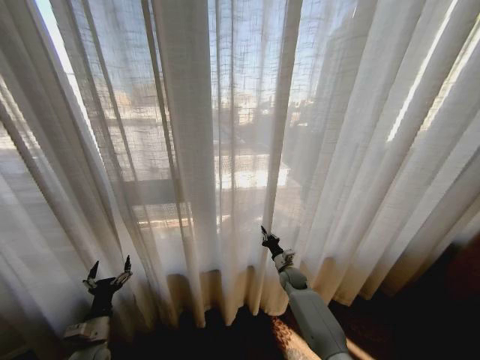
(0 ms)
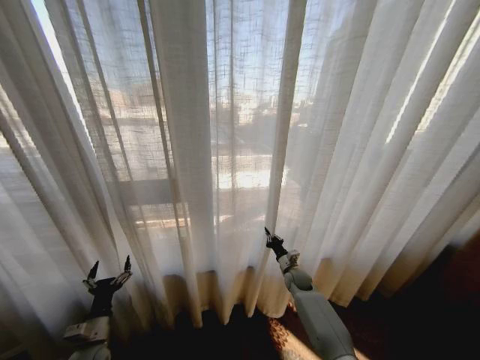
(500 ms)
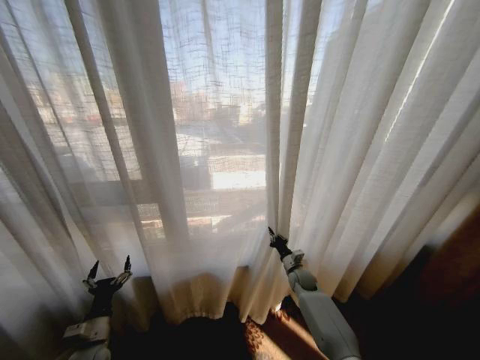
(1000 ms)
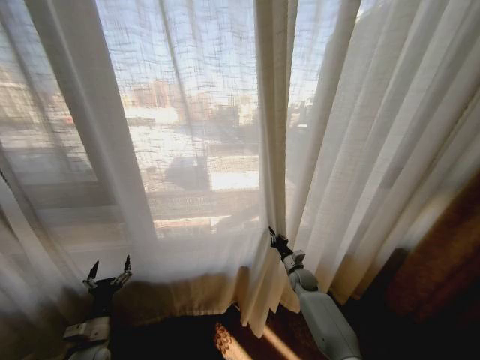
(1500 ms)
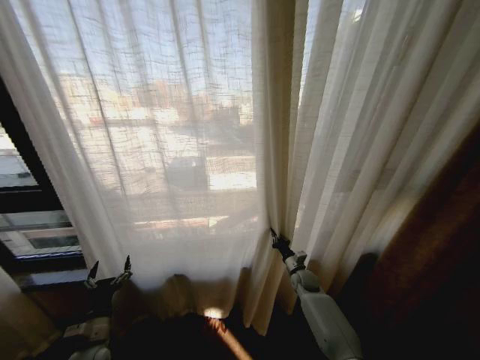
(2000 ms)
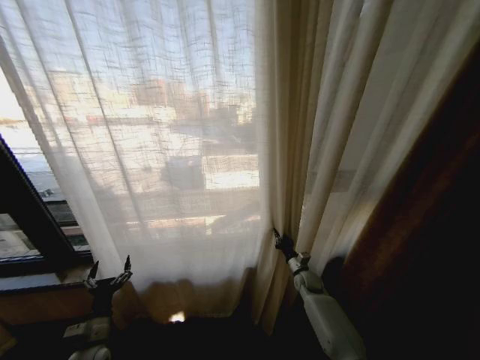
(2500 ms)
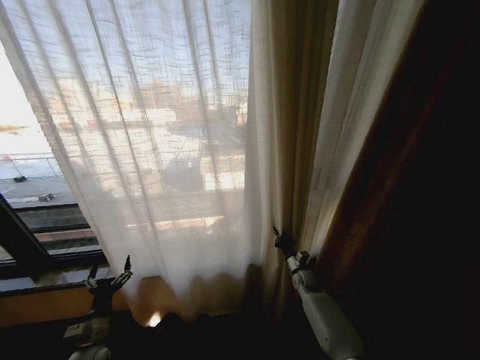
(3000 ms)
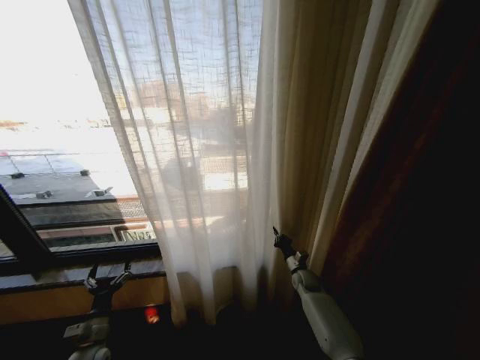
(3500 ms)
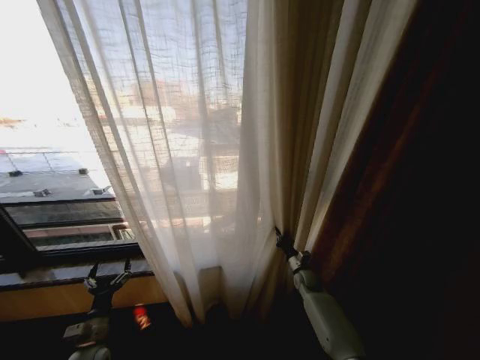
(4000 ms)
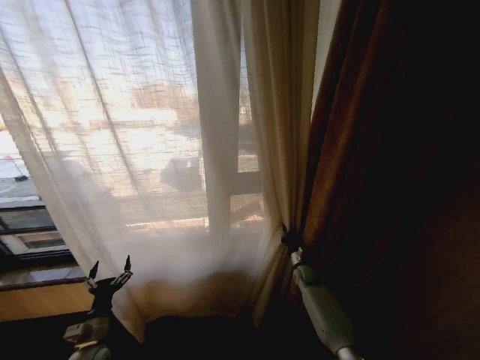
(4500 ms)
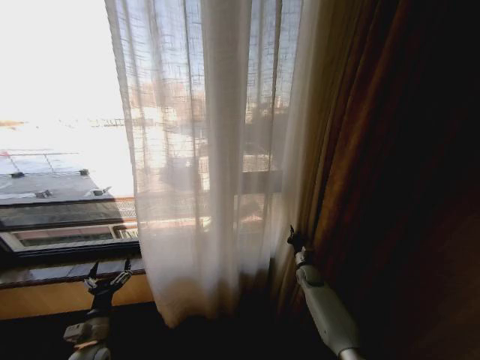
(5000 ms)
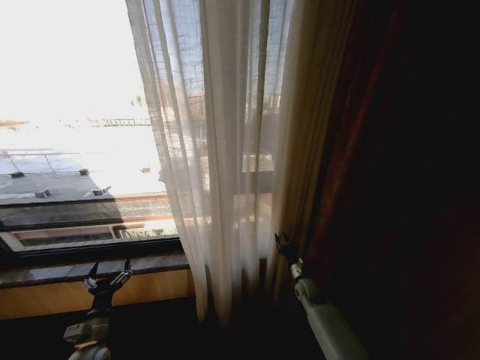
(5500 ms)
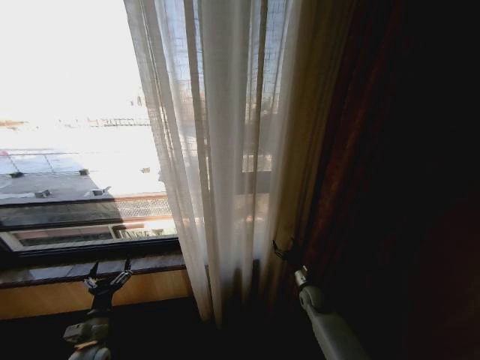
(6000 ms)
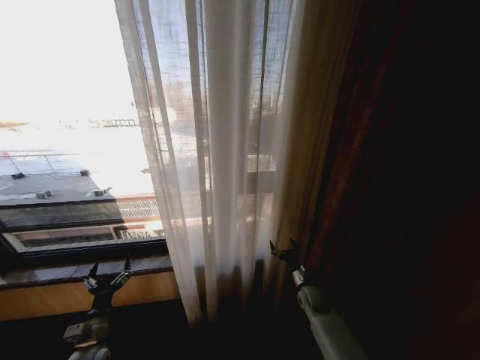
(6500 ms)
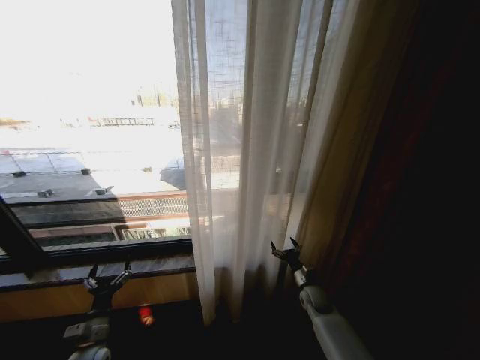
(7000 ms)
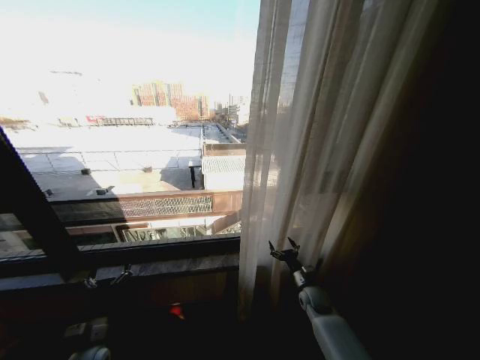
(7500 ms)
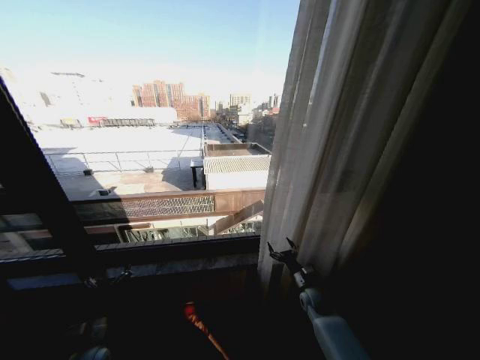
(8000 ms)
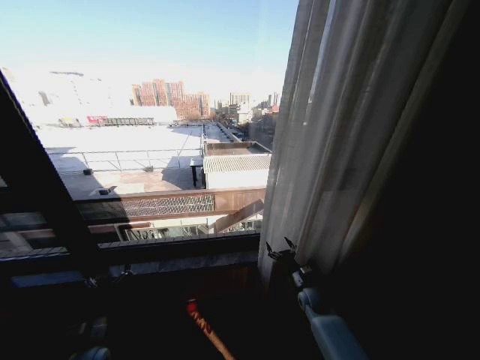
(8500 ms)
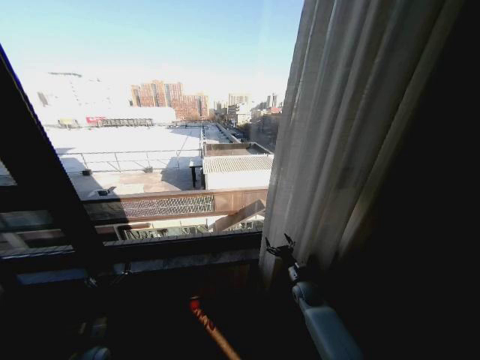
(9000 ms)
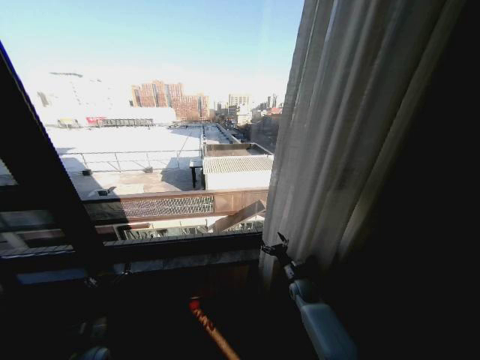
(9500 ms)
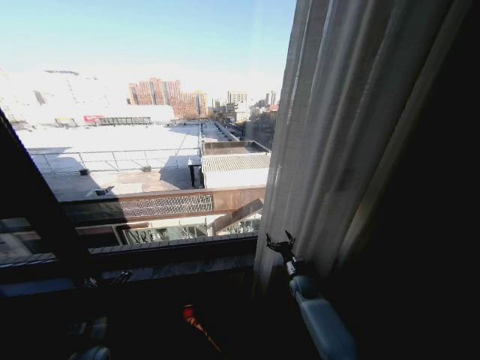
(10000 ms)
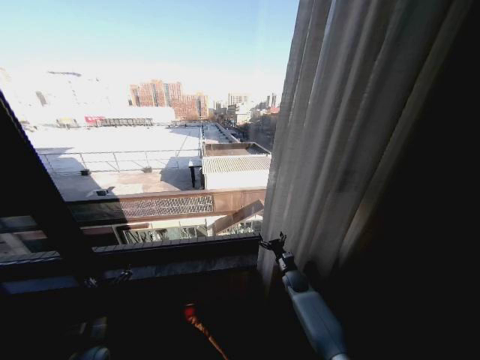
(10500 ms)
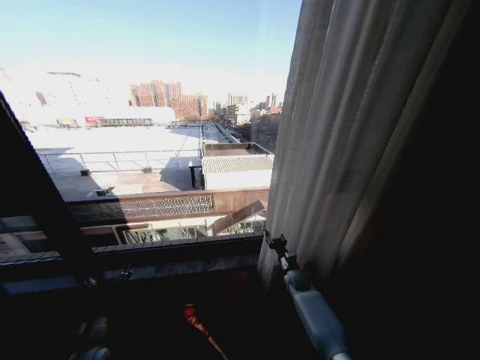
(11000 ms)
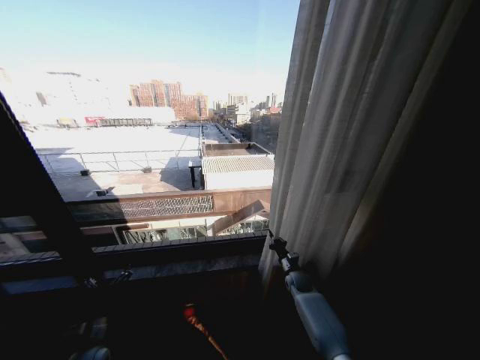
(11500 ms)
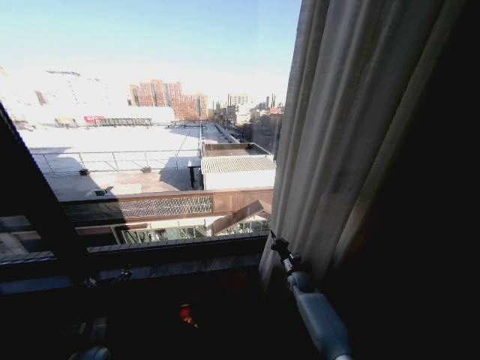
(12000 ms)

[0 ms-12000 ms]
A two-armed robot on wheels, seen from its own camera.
Task of the whole recording: Open the curtains by pulling them apart, changing their state from closed to fully open.
4000 ms to 6000 ms: The right gripper is displaced backward by about 5 cm, and opens up.
8000 ms to 10000 ms: The right gripper shifts about 5 cm forward.
10000 ms to 12000 ms: The right gripper closes.

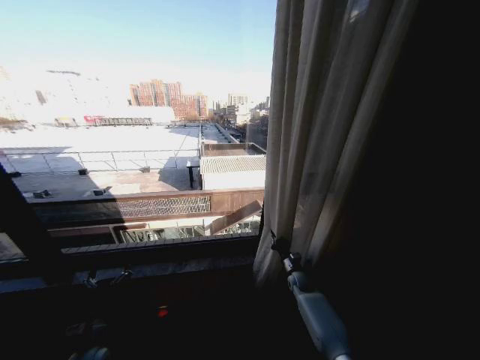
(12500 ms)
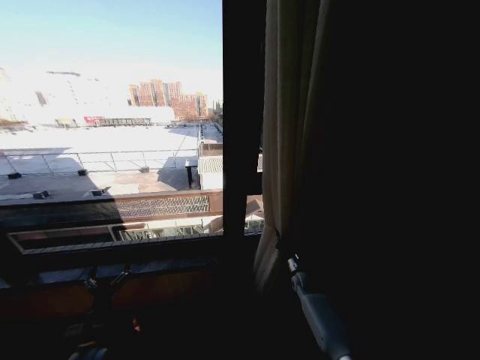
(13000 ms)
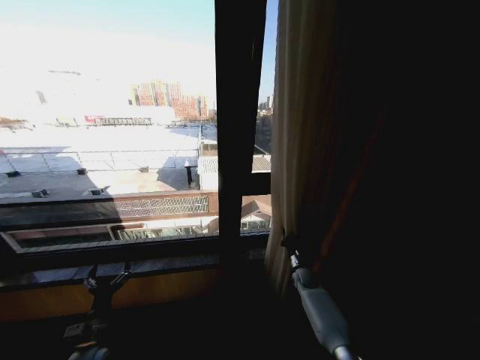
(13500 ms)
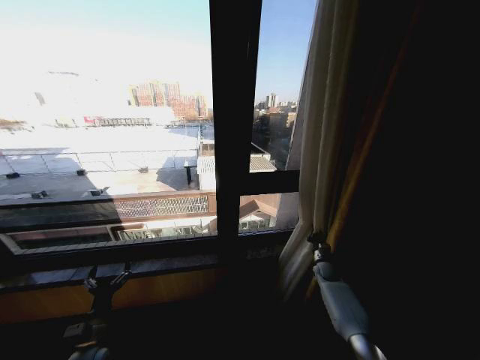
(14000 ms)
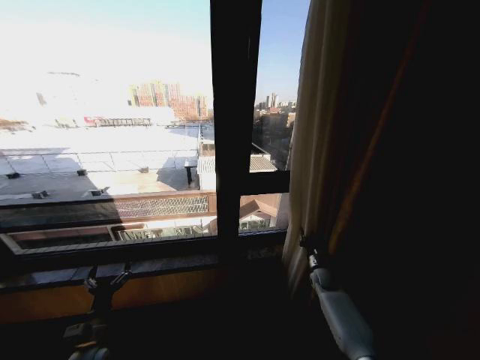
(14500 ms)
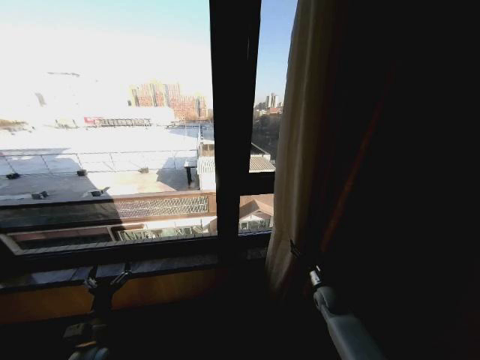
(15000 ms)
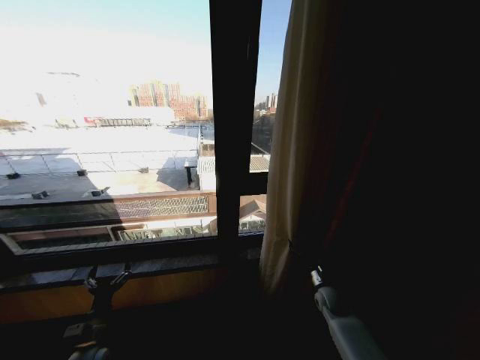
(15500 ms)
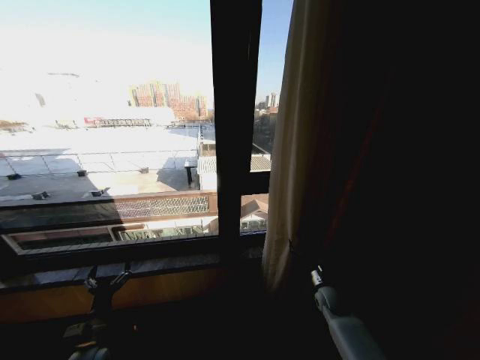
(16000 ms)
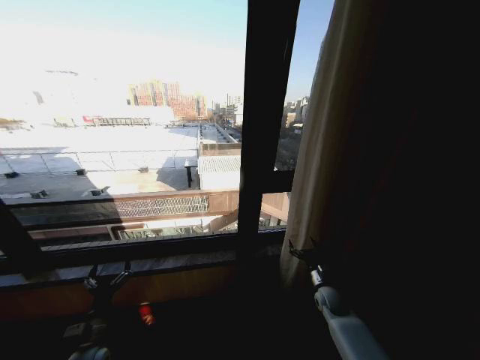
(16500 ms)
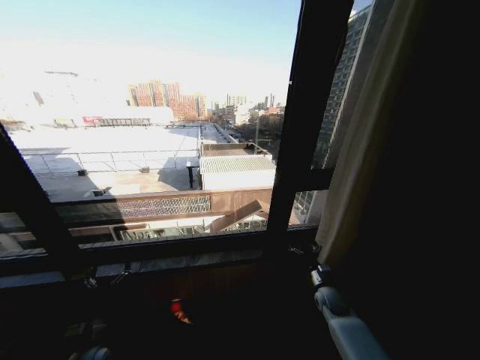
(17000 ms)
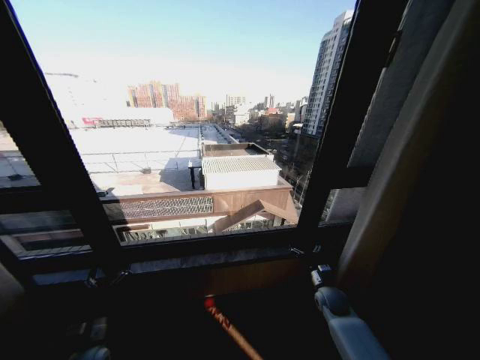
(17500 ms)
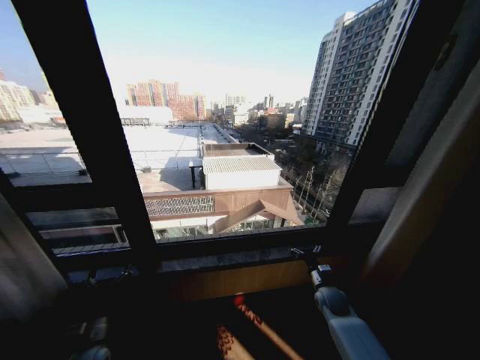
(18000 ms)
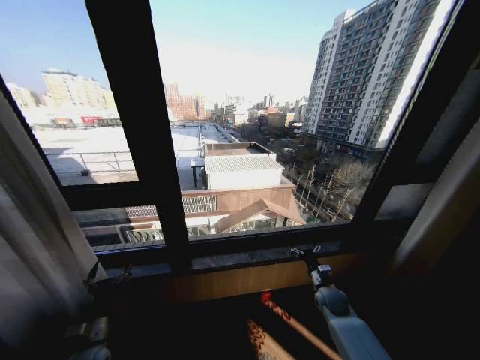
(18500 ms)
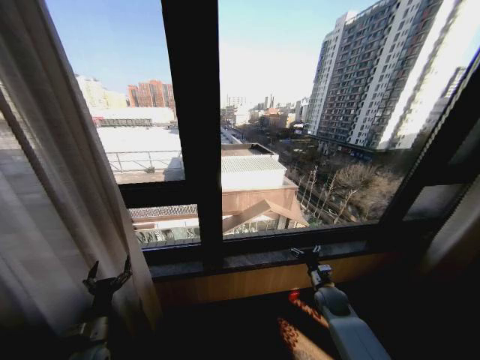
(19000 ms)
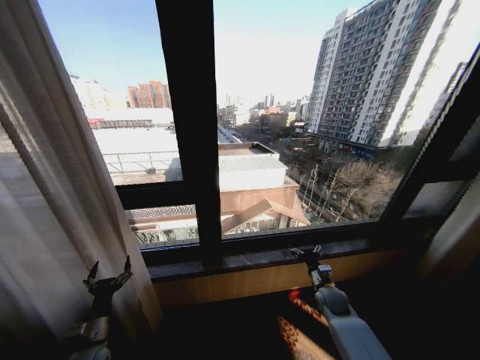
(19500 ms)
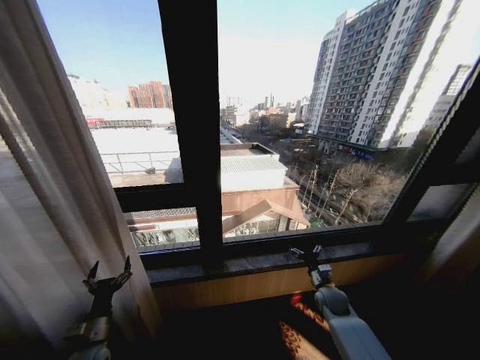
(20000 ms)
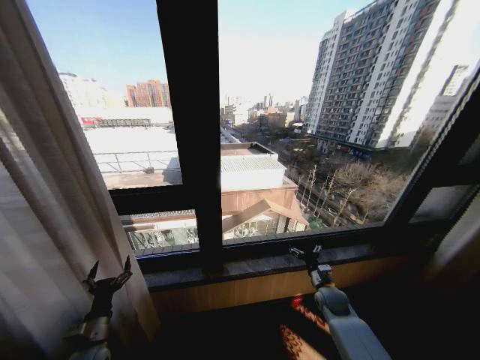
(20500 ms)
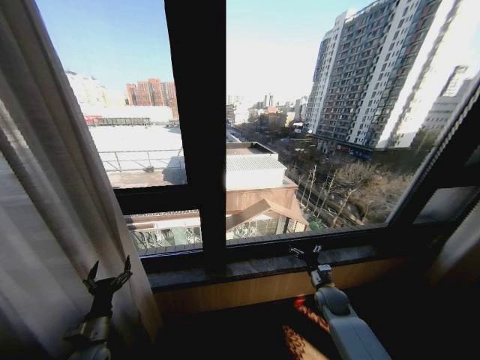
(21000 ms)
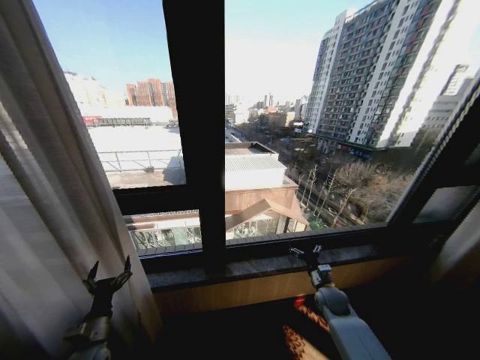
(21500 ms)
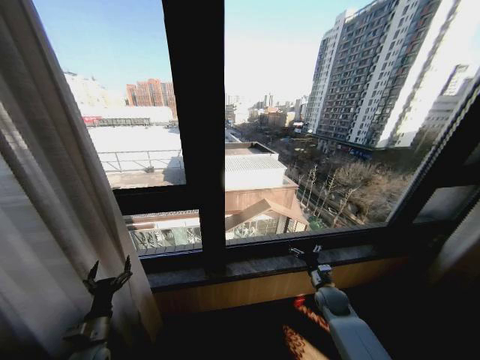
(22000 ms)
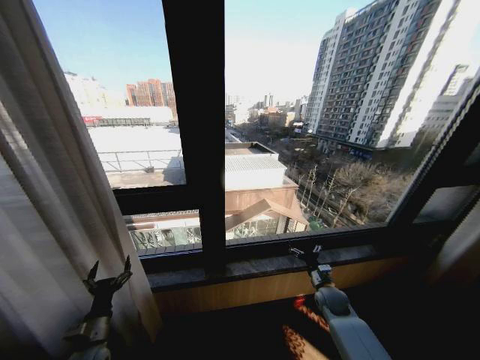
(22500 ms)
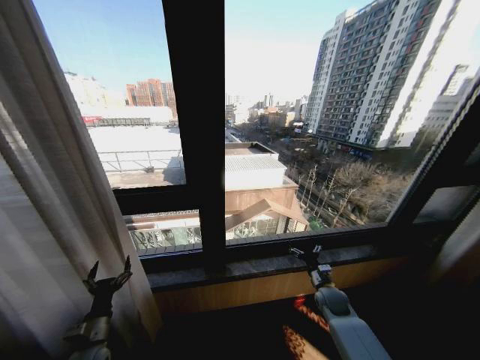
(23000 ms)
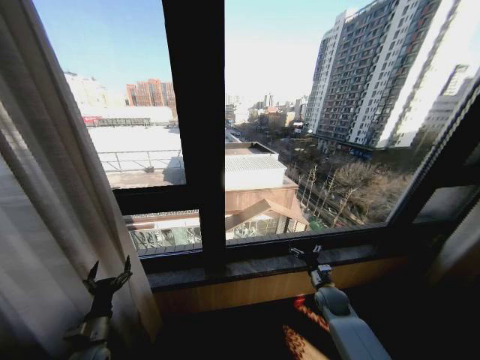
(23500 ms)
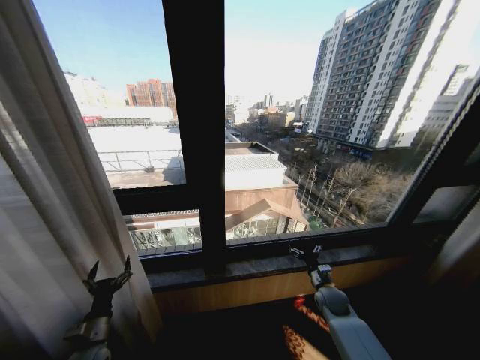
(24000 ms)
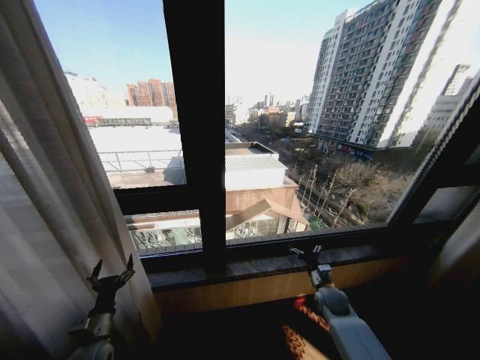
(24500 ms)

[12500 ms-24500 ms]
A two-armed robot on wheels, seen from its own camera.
Task of the whole recording: Open the curtains by pulling them apart, changing their state from closed to fully open.
12500 ms to 14500 ms: The right gripper moves to the right, about 10 cm.
14500 ms to 16500 ms: The right gripper moves backward, about 10 cm, and opens up.
20500 ms to 24500 ms: Both grippers stay put.

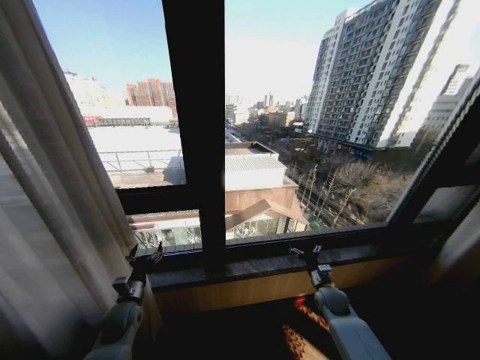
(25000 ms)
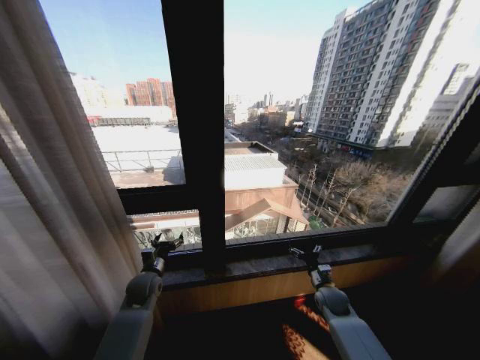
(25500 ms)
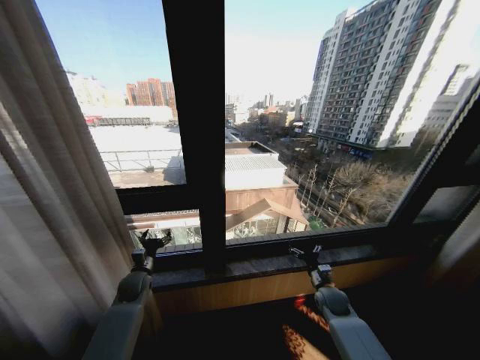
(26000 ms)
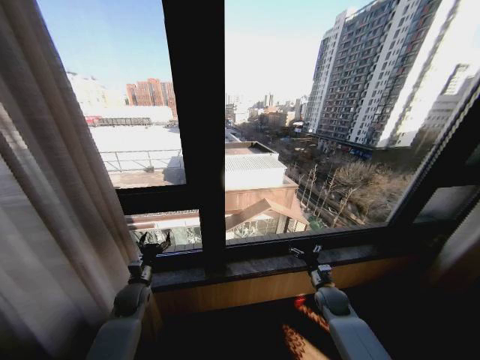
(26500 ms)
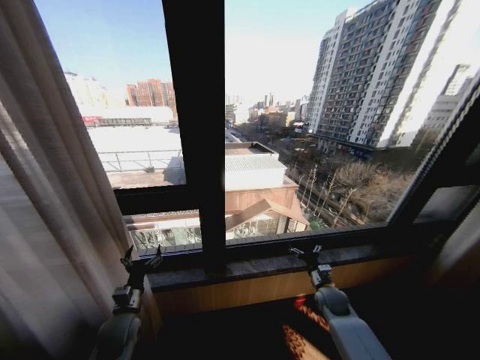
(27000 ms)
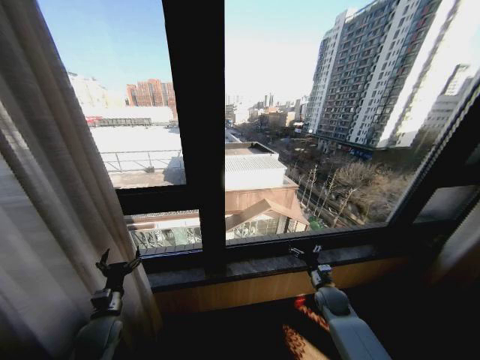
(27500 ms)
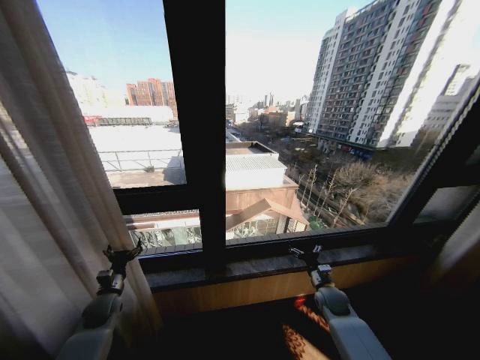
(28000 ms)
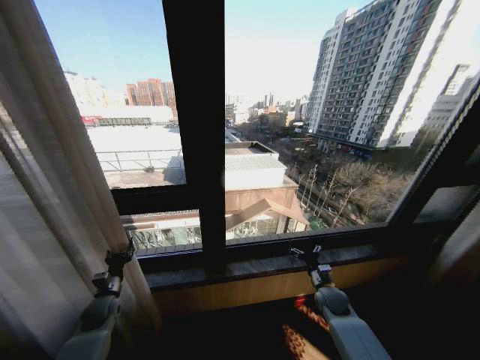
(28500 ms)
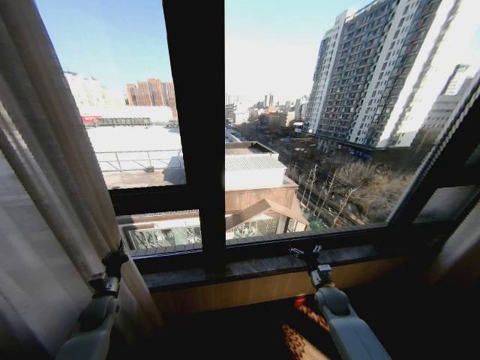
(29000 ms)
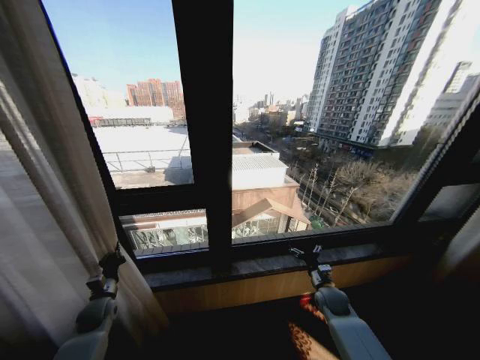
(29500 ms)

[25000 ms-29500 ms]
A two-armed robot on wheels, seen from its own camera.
Task of the whole recording: Open the curtains by pulling them apart, changing their state from closed to fully open.
25000 ms to 27000 ms: The left gripper reaches roughly 10 cm forward, then returns.
27000 ms to 29500 ms: The left gripper travels to the left and forward by some 15 cm, and closes up.
